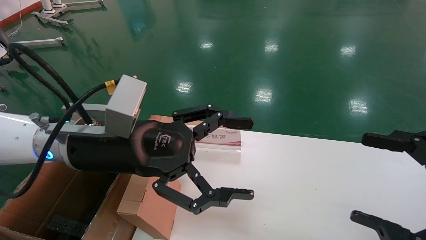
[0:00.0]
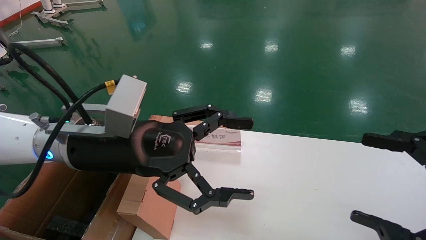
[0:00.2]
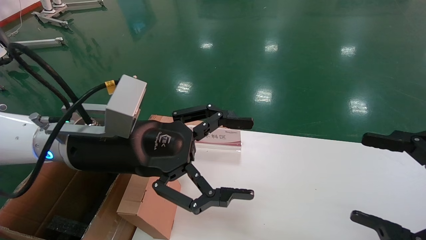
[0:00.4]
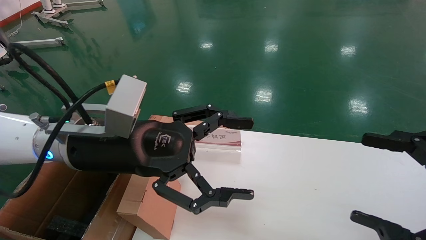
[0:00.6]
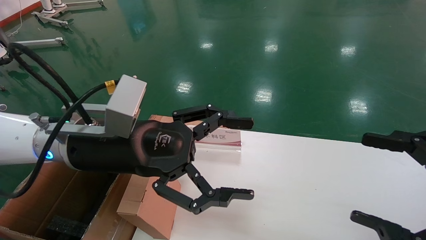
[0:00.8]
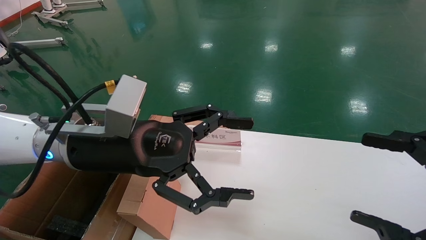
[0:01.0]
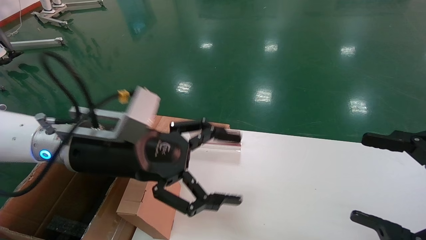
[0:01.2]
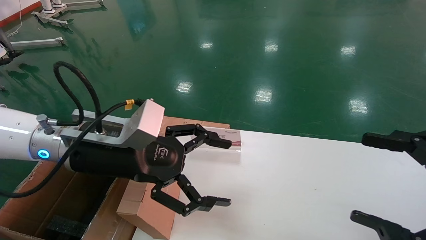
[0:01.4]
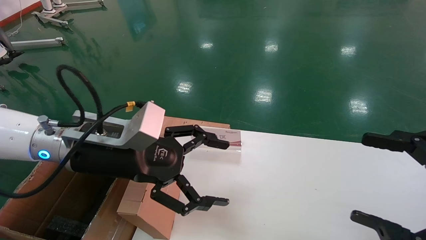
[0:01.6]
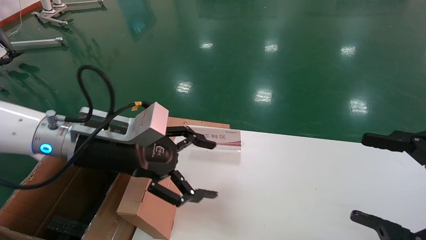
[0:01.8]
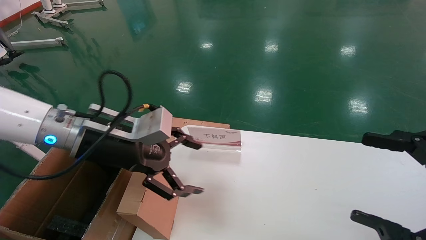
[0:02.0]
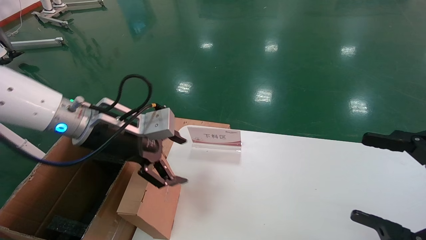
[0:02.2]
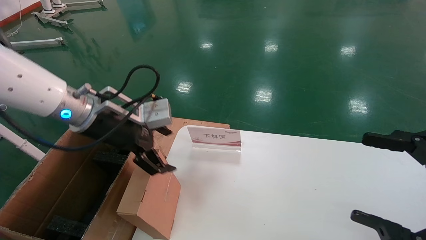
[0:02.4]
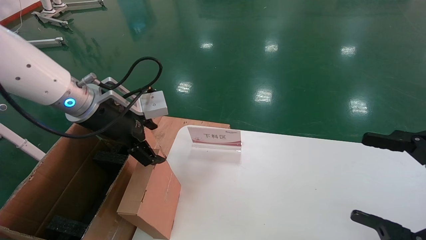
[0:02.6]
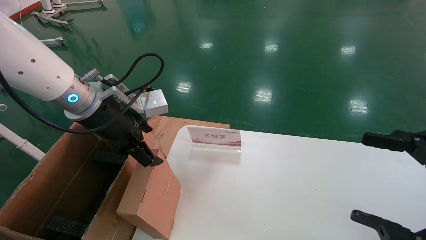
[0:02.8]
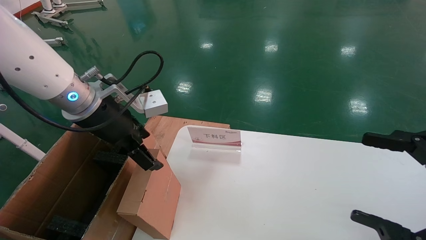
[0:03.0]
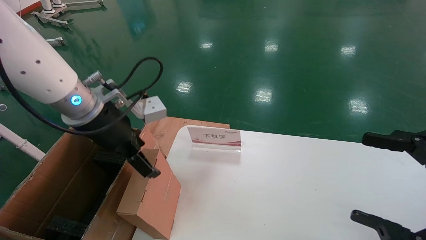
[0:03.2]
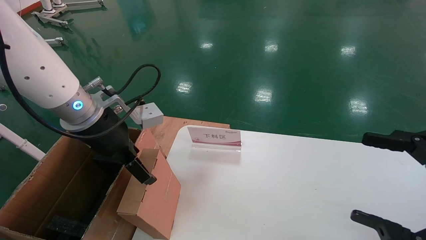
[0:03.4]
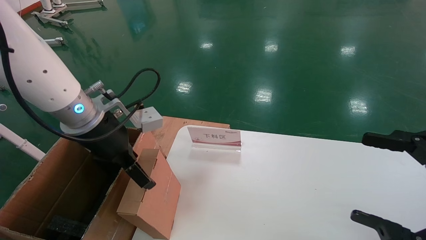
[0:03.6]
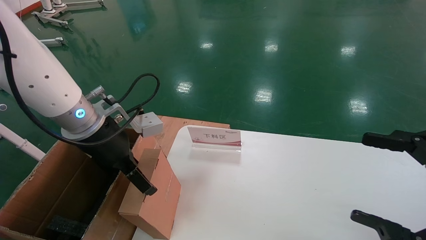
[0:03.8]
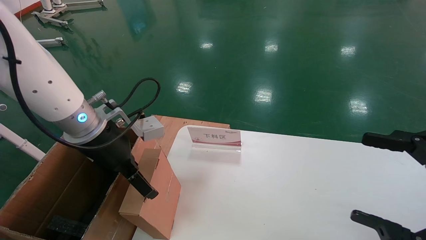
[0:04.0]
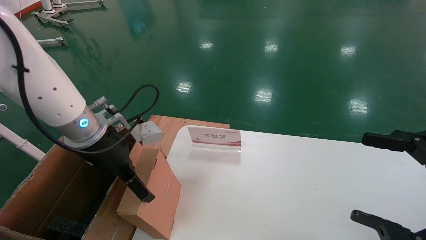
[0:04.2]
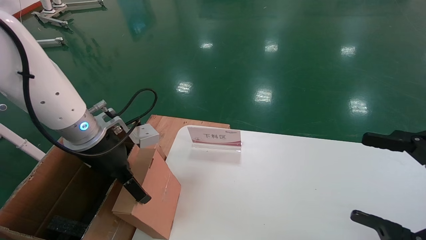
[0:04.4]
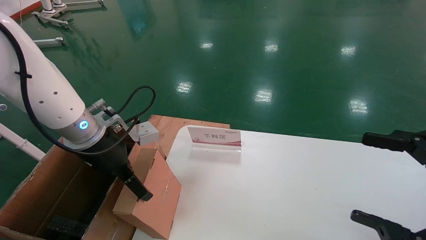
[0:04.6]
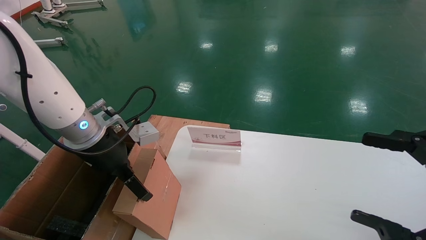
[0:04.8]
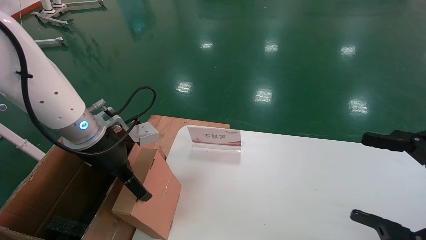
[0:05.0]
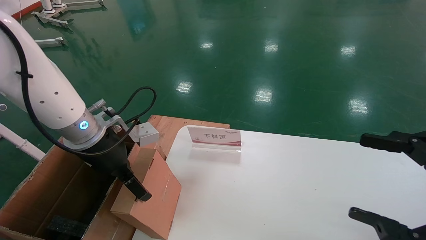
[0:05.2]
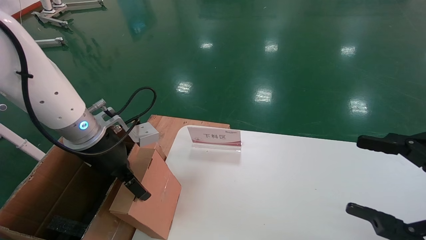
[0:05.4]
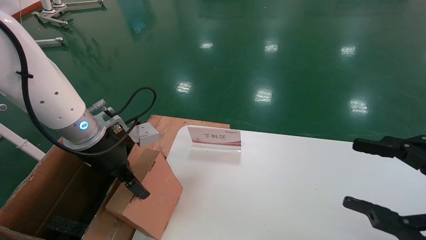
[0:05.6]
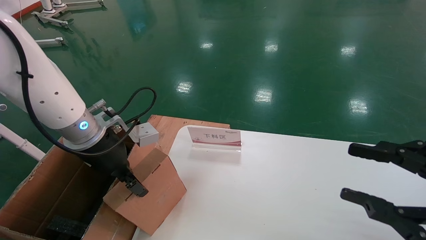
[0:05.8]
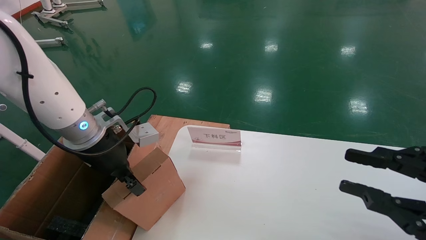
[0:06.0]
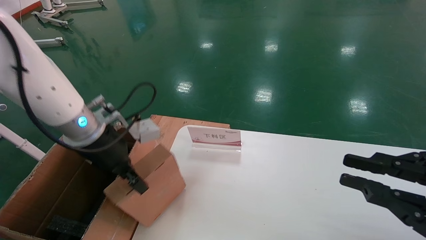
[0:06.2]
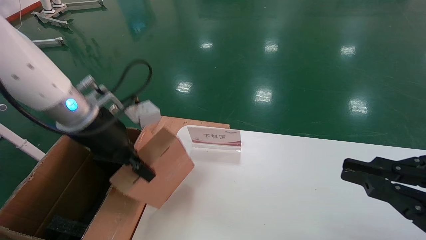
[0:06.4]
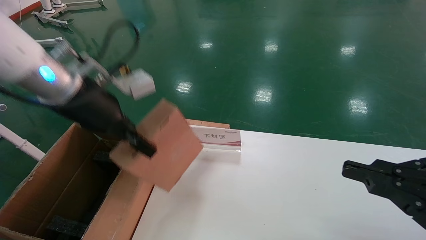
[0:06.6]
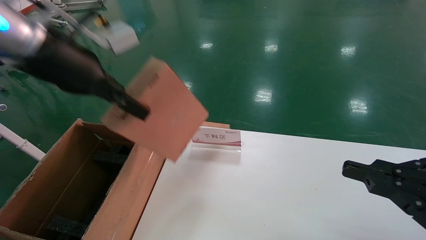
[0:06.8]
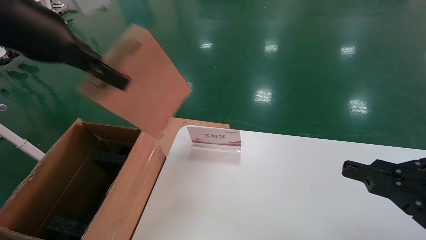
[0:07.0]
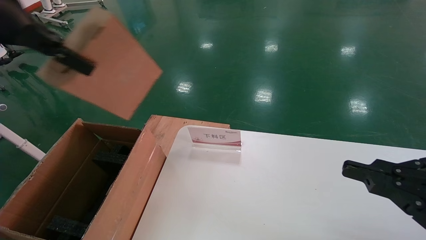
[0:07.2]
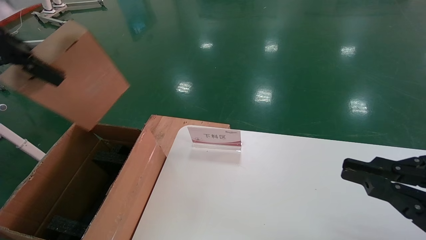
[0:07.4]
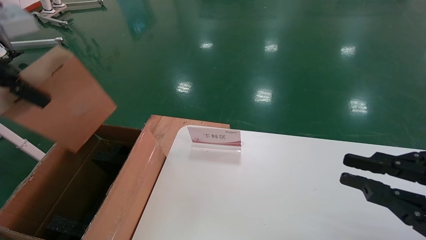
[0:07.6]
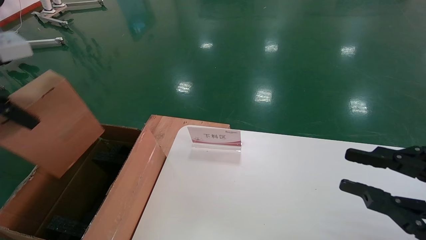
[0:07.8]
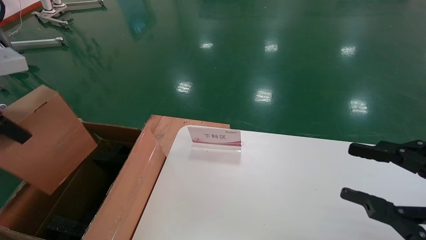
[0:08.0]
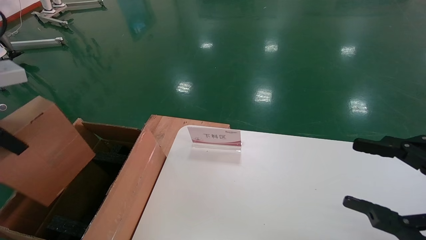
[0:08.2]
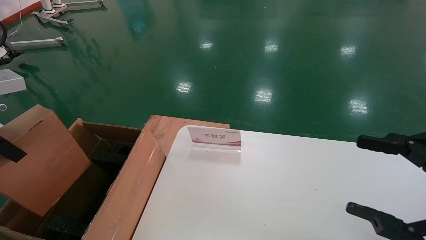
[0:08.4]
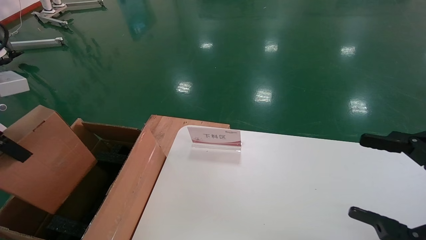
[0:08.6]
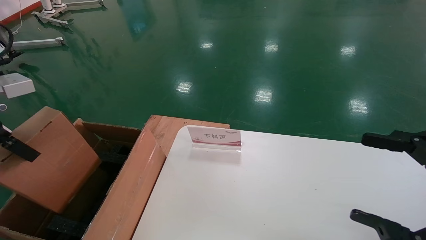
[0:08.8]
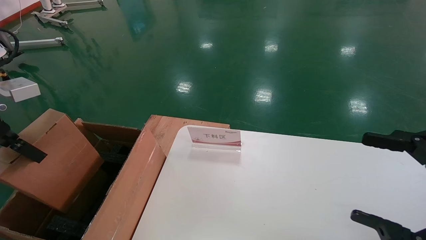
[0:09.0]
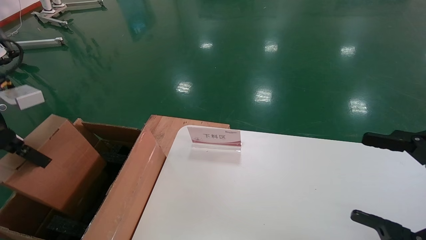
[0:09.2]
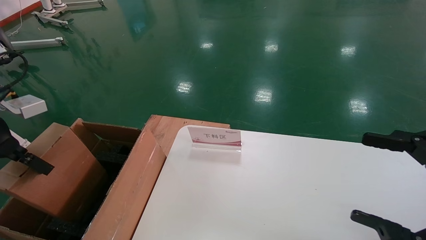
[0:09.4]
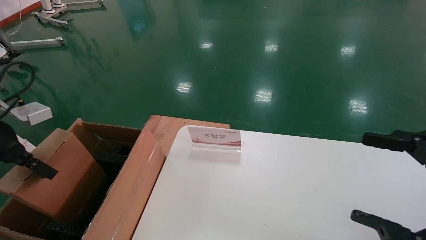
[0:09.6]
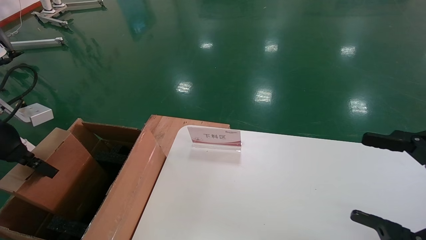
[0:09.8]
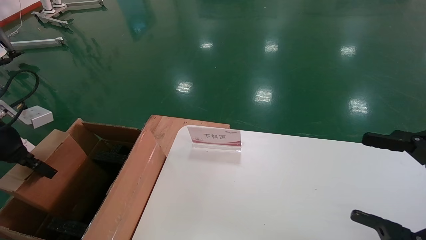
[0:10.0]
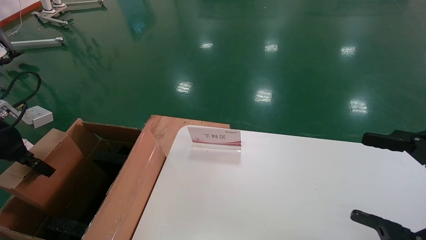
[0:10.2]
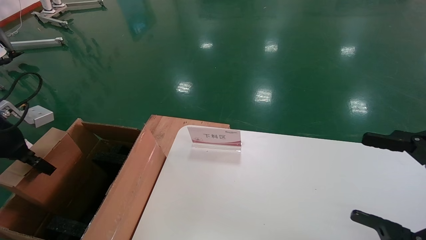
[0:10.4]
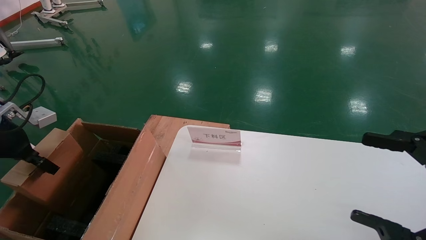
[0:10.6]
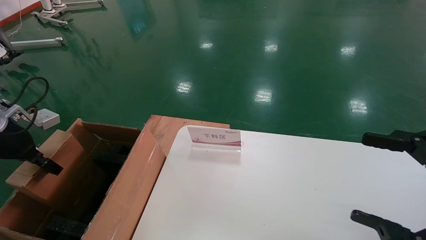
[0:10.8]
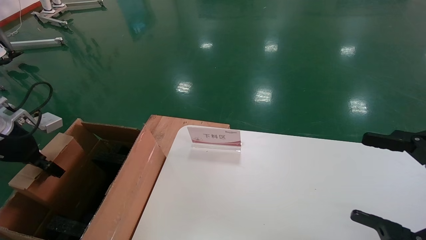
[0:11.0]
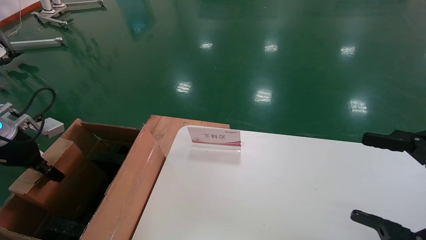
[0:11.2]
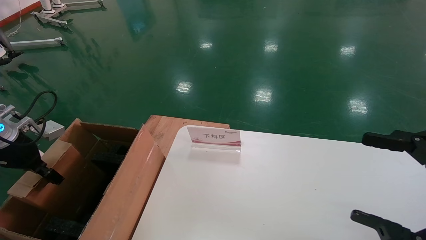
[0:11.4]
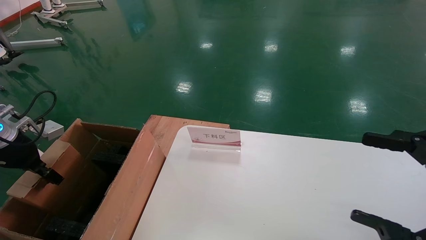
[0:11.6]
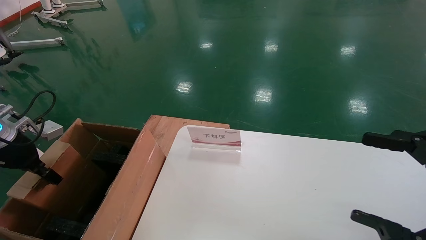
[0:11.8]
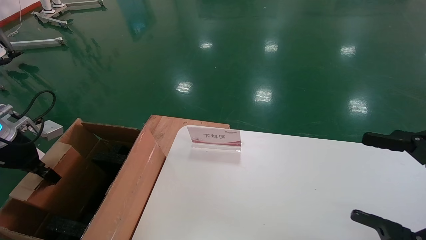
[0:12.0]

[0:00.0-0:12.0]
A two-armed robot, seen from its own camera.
Task of the whole recording: pick up the small cardboard box and load it into the large cardboard box.
Step, 0:01.2 to 0:05.4: Pick up the mouse and power cord box.
0:01.6 to 0:03.0: The left gripper moves forward, approximately 5 cm.
0:03.0 to 0:04.4: The left gripper heads downward, covering some 5 cm.
0:04.4 to 0:06.0: The left gripper closes. The right gripper closes.
0:06.0 to 0:07.6: The left gripper goes approximately 25 cm upward, to the left and backward.
0:07.6 to 0:09.0: The left gripper shifts roughly 10 cm downward; the right gripper opens.
0:09.0 to 0:10.4: The left gripper goes approximately 10 cm downward and forward.
0:10.4 to 0:12.0: The left gripper moves approximately 5 cm.

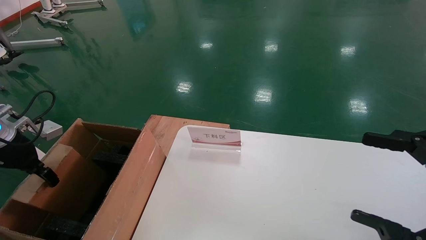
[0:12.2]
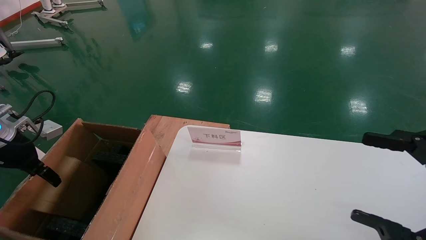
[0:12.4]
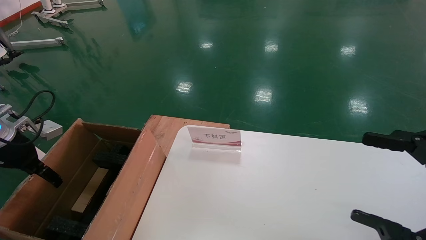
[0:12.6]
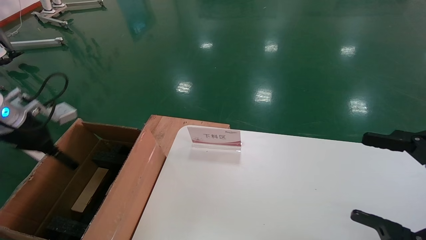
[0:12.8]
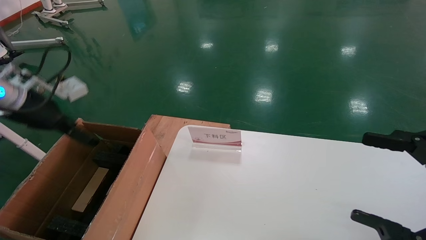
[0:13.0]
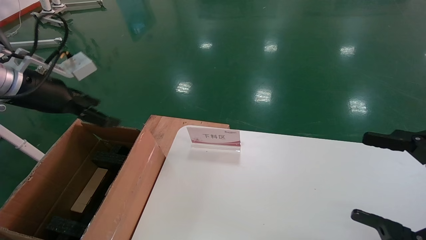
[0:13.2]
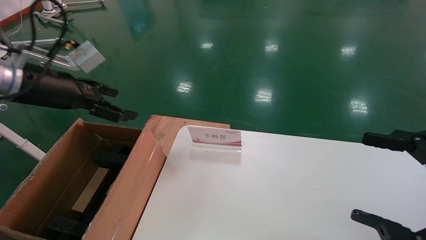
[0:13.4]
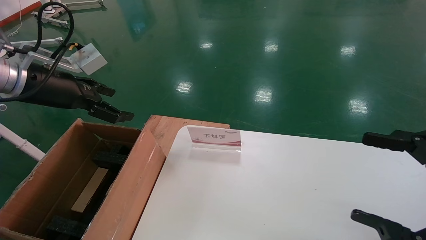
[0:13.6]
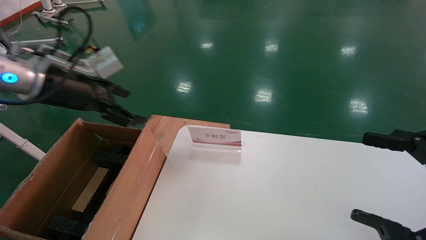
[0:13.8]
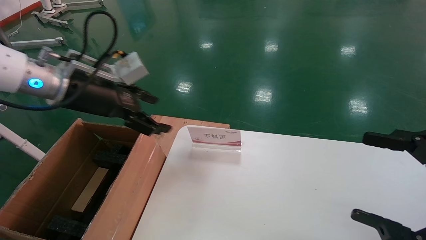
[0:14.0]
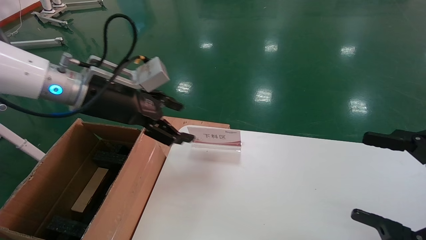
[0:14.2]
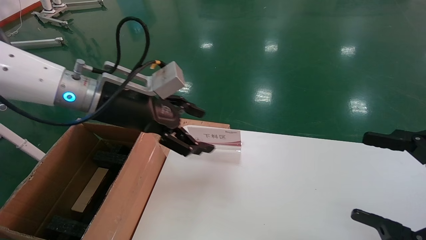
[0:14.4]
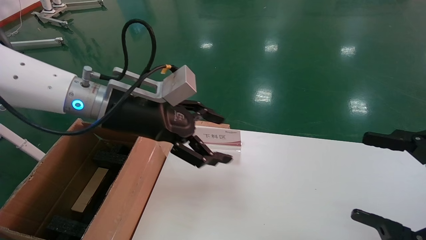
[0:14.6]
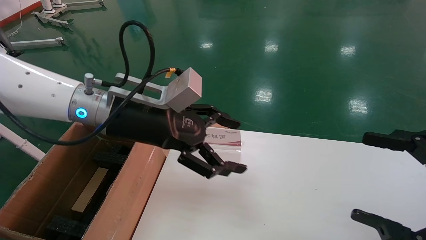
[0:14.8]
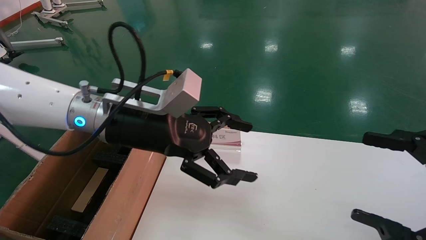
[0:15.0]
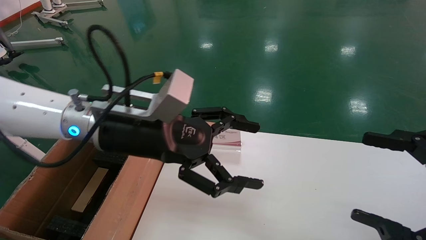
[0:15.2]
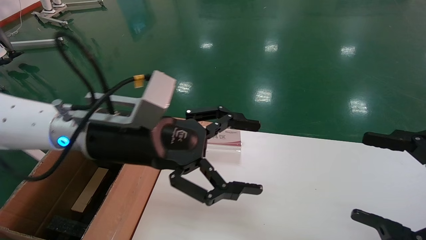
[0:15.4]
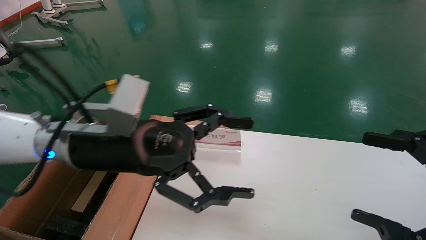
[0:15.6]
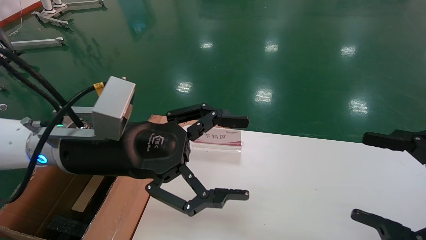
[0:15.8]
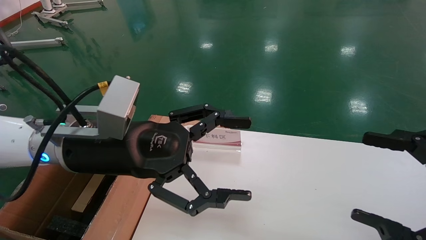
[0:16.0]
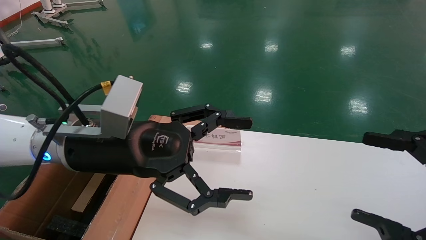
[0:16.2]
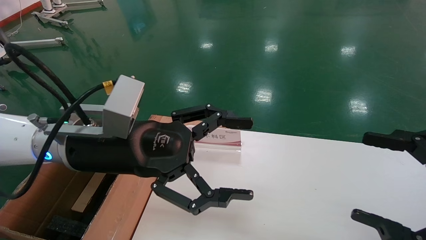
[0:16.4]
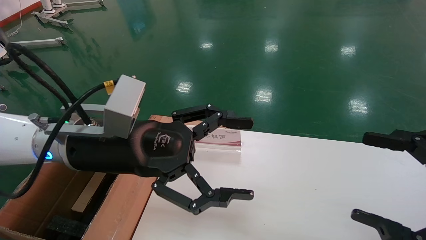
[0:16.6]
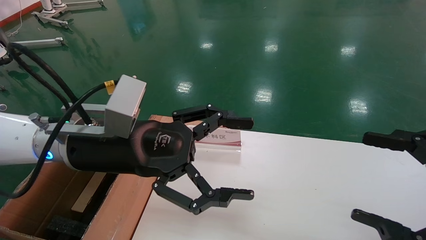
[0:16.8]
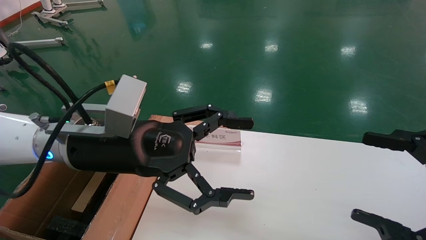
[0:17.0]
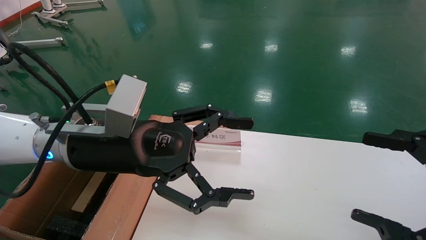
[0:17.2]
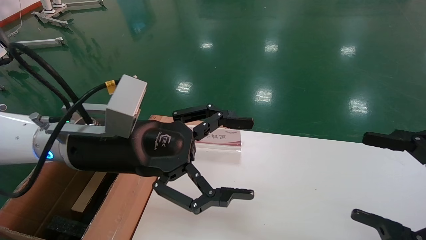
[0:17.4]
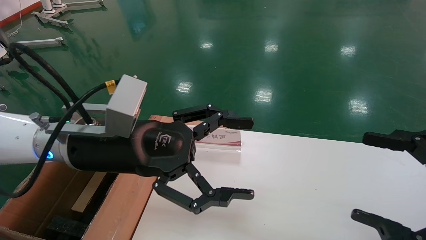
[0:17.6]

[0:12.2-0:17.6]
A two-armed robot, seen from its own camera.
Task of the whole recording: pick up the small cardboard box and load it into the large cardboard box.
0:12.2 to 0:13.6: The left gripper shifts roughly 20 cm to the right and upward, and opens its fingers.
0:13.6 to 0:15.0: The left gripper goes roughly 20 cm to the right.
0:15.0 to 0:16.2: The left gripper changes place by approximately 5 cm.
0:16.2 to 0:17.6: Both grippers stay put.
